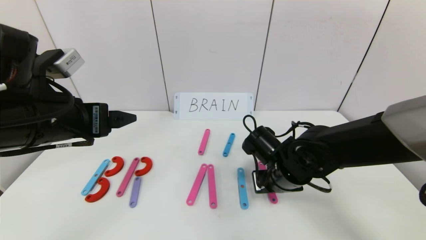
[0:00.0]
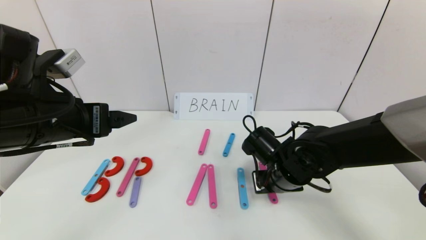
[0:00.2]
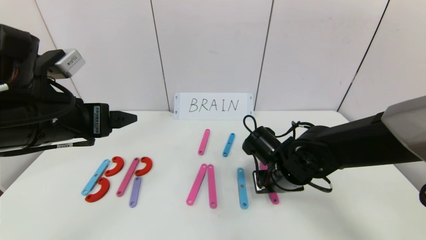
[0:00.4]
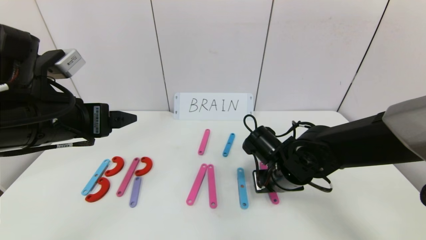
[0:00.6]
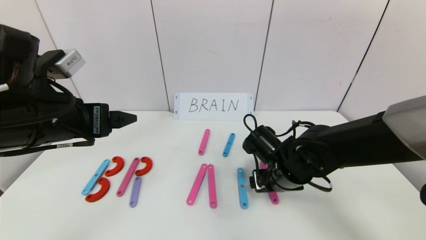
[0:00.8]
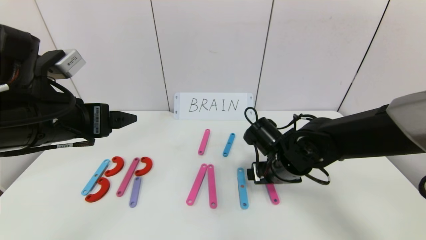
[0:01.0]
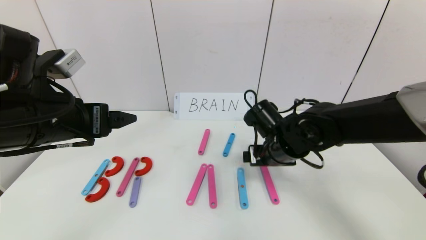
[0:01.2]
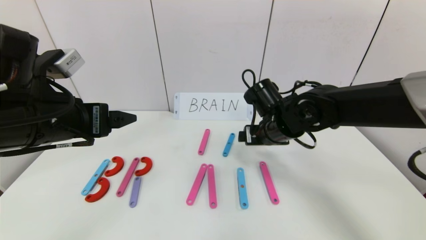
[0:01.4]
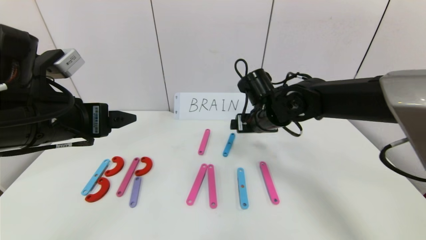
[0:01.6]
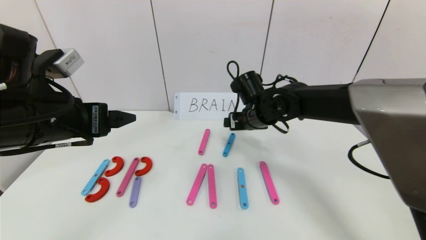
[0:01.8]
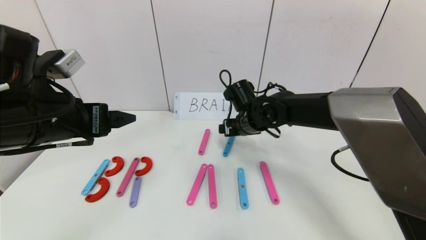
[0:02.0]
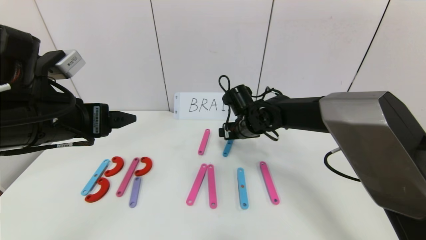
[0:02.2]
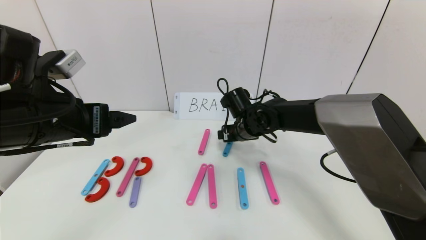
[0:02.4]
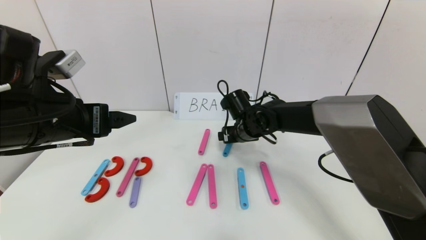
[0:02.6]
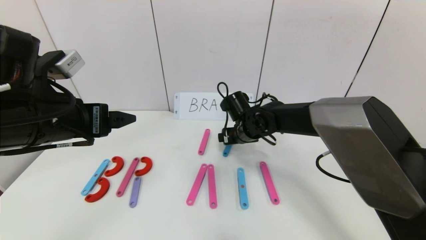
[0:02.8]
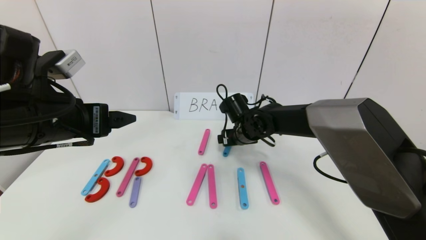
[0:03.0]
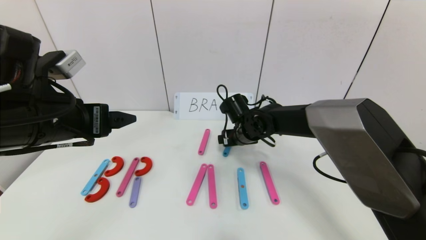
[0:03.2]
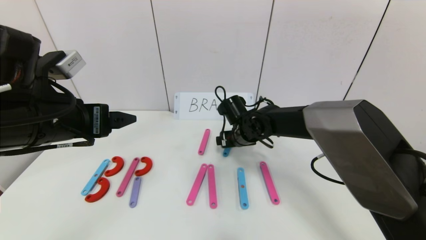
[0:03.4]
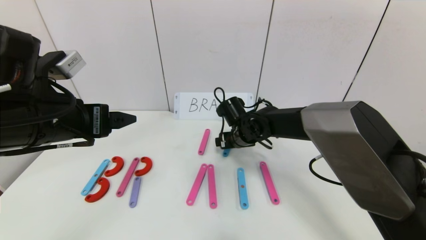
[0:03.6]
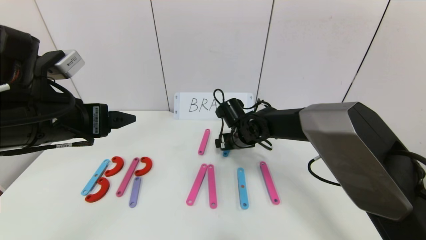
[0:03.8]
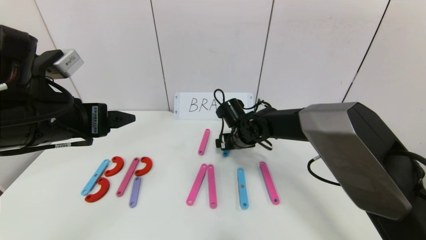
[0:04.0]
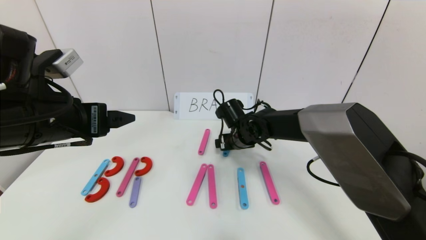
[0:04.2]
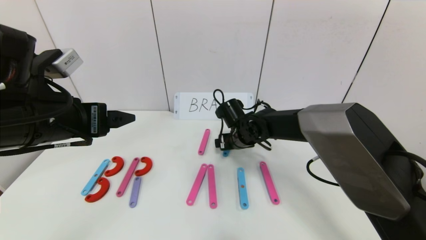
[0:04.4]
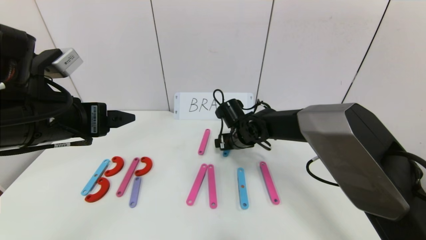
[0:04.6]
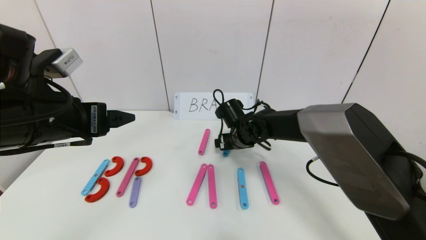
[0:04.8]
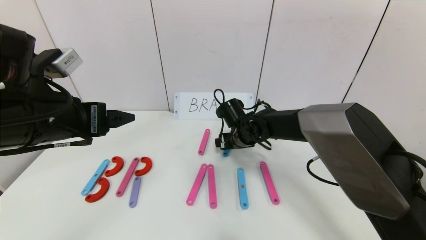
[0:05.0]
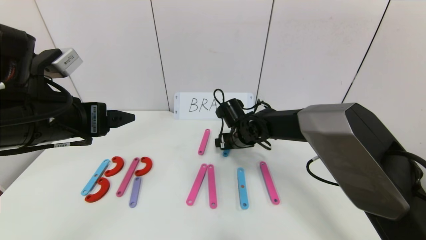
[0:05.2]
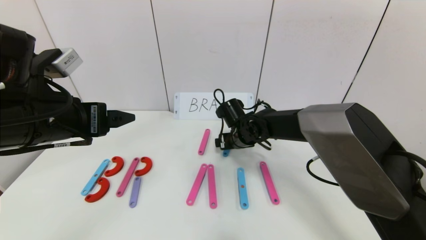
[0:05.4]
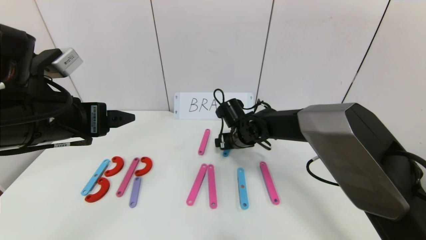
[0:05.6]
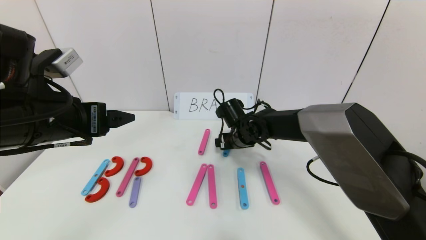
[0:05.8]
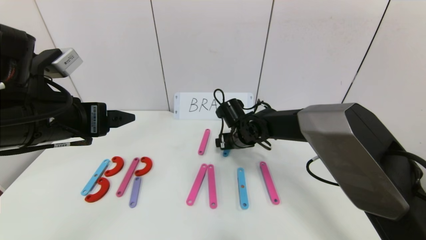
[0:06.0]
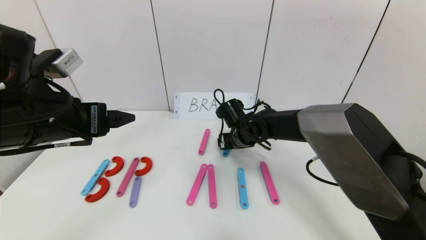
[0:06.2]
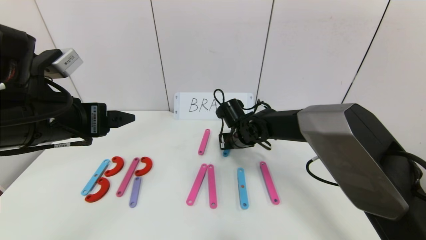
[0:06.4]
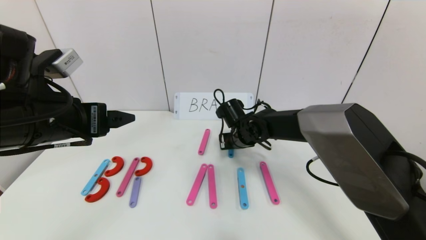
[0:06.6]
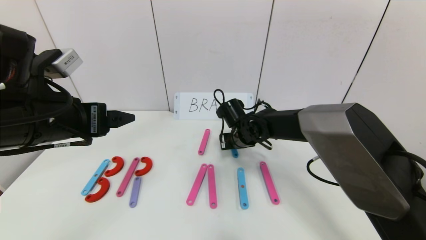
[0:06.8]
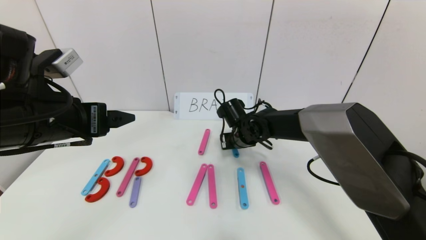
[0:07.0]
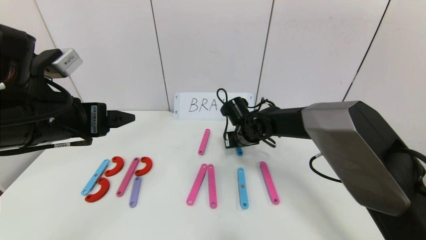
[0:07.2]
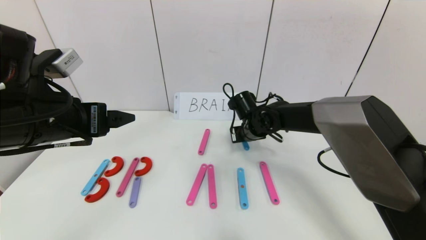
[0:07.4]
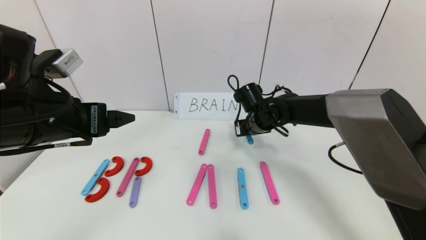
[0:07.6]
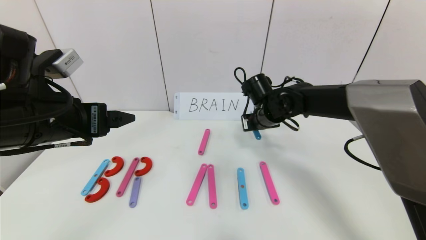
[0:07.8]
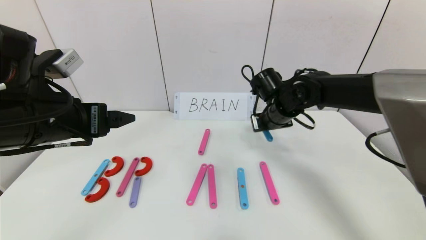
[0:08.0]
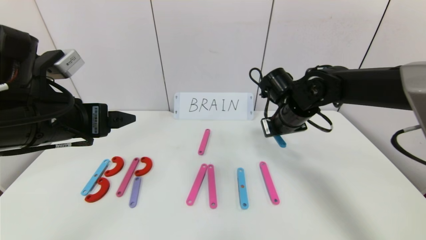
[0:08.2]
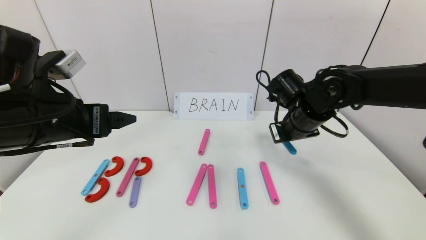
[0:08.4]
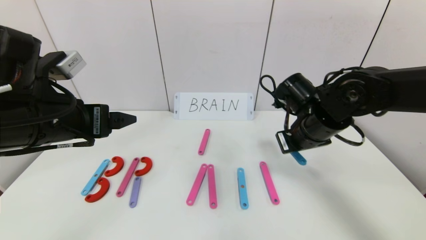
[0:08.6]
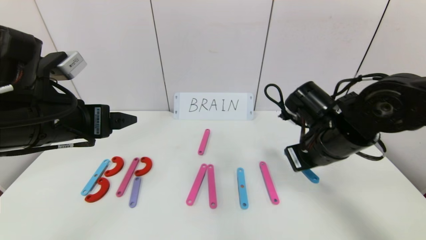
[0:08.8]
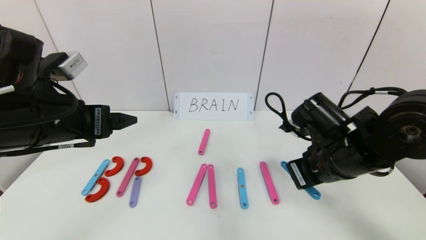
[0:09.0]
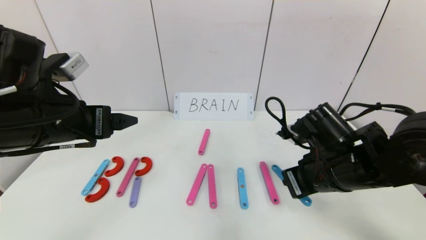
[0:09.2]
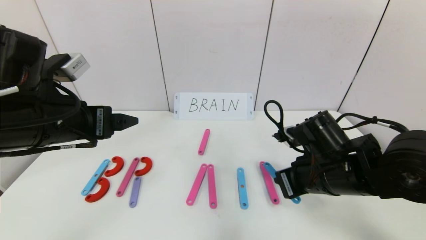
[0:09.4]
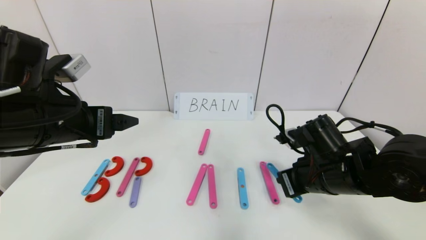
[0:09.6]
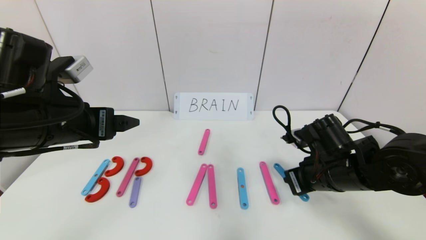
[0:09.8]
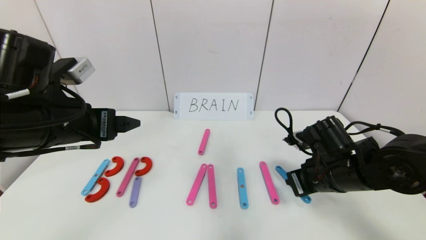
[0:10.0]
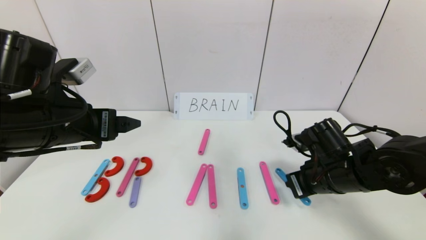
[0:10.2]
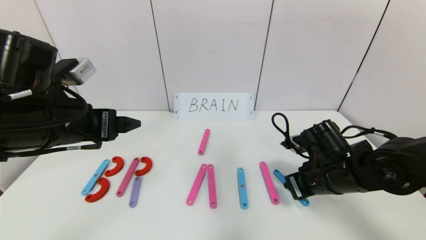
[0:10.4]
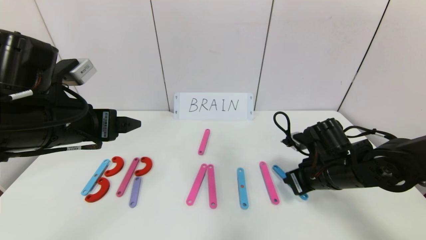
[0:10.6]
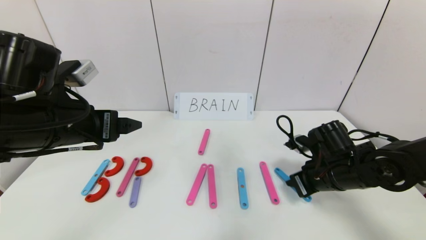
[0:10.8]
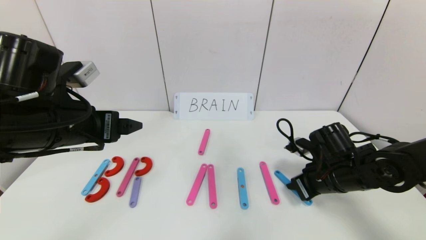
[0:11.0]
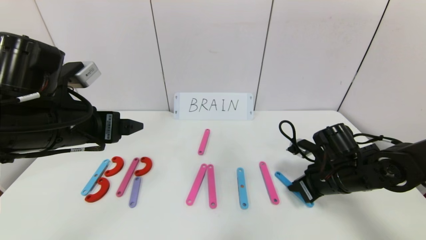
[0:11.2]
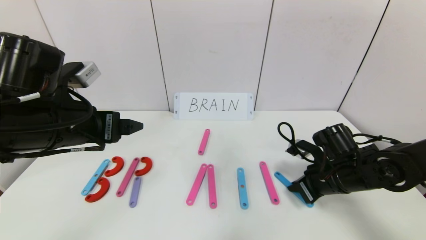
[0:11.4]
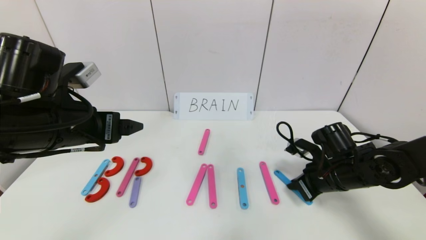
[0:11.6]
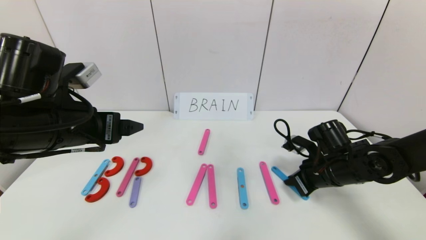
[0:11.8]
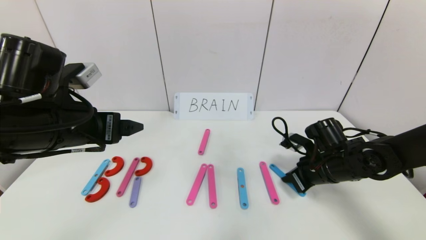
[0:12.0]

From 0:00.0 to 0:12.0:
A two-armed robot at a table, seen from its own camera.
Task of the whole recording: rearrange the word baai as brain.
From 0:00.0 to 0:01.6: The right gripper is displaced forward and upward by some 15 cm, and opens up.
From 0:01.6 to 0:03.0: The right gripper heads downward, covering approximately 5 cm.
From 0:03.0 to 0:04.4: There are only small adjustments of the grippers.
From 0:04.4 to 0:06.0: Neither gripper changes place.
From 0:06.0 to 0:07.6: The right gripper changes place by about 5 cm, and closes up.
From 0:07.6 to 0:09.0: The right gripper moves backward and to the right, some 20 cm.
From 0:09.0 to 0:10.4: The right gripper moves downward, about 5 cm.
From 0:10.4 to 0:12.0: The right gripper shifts by some 5 cm.

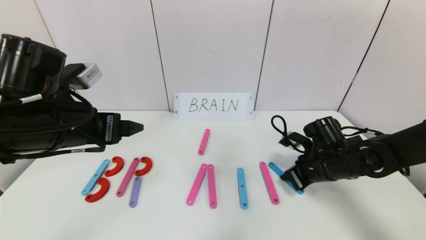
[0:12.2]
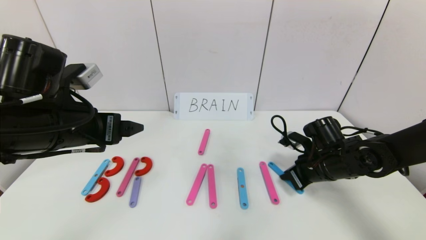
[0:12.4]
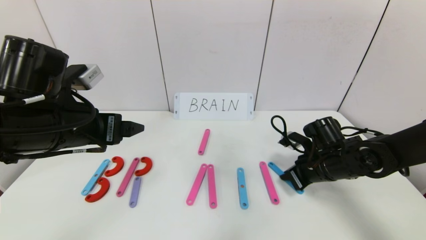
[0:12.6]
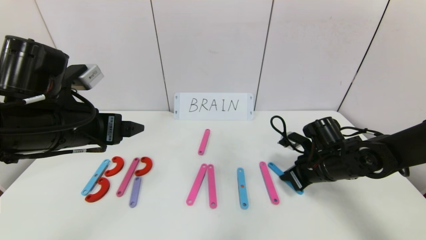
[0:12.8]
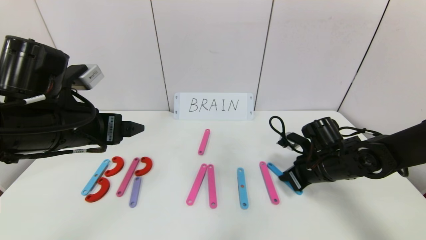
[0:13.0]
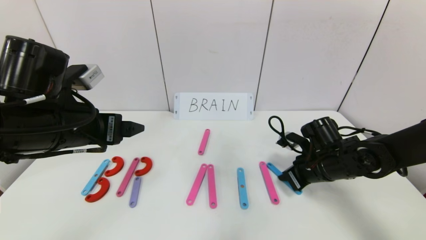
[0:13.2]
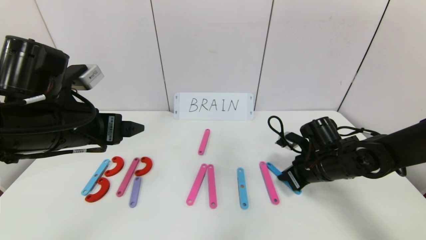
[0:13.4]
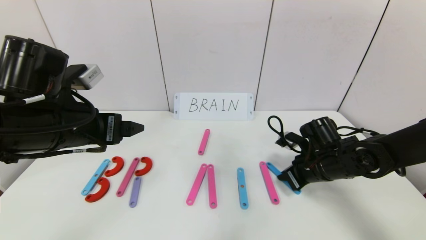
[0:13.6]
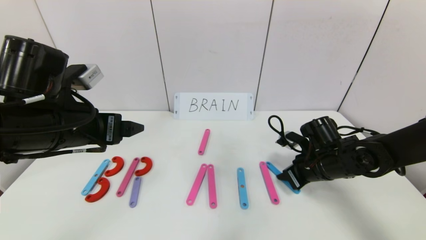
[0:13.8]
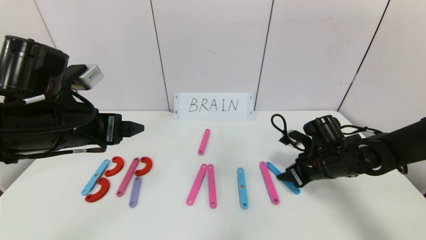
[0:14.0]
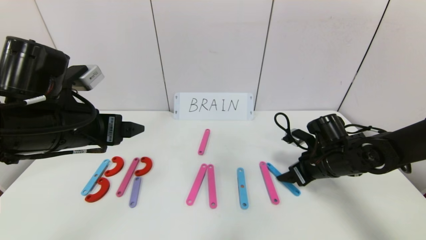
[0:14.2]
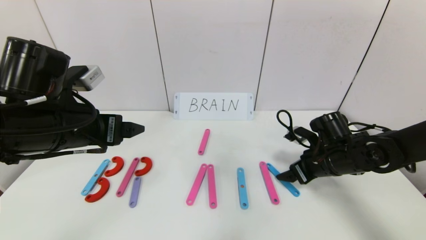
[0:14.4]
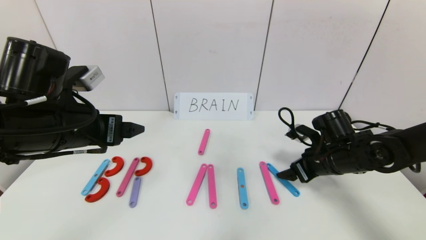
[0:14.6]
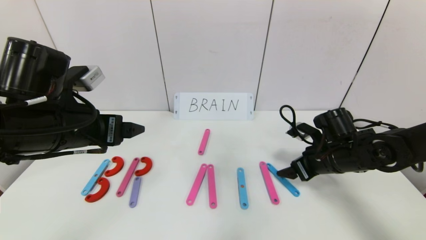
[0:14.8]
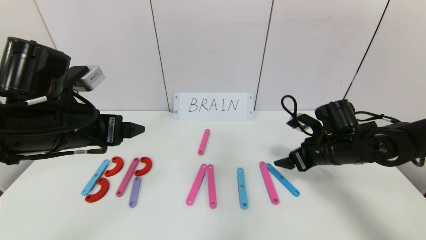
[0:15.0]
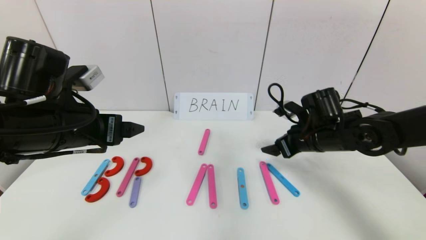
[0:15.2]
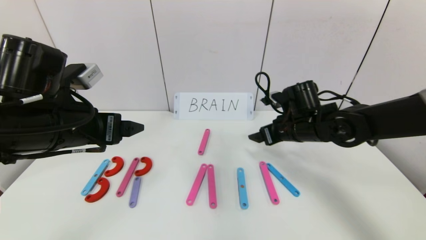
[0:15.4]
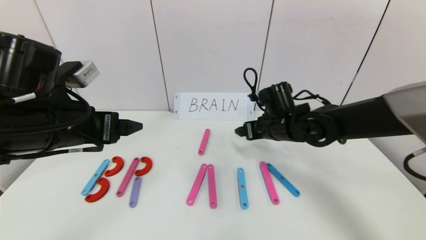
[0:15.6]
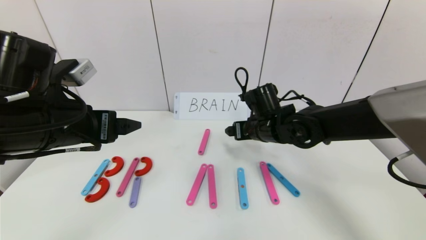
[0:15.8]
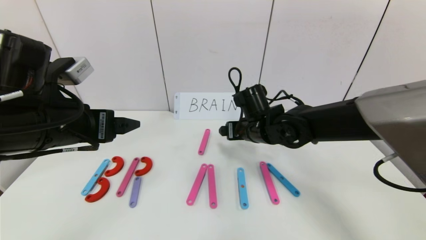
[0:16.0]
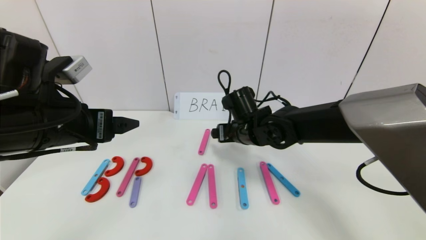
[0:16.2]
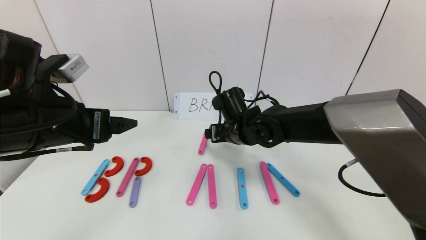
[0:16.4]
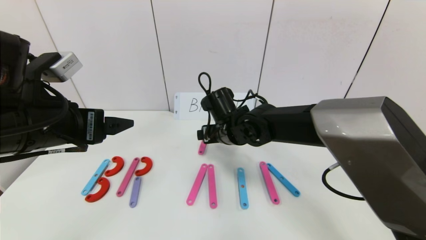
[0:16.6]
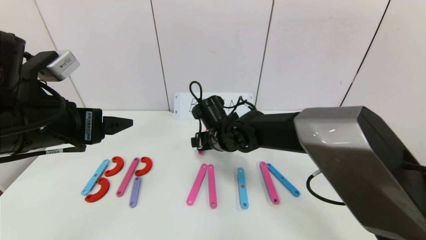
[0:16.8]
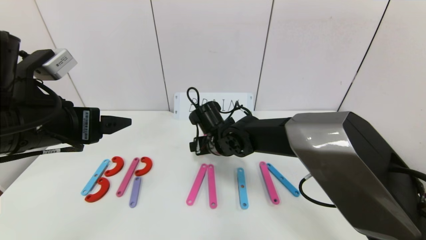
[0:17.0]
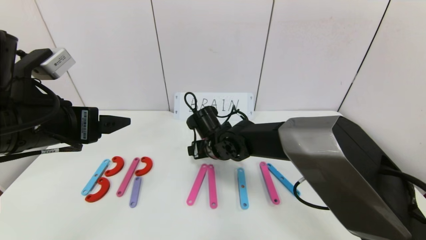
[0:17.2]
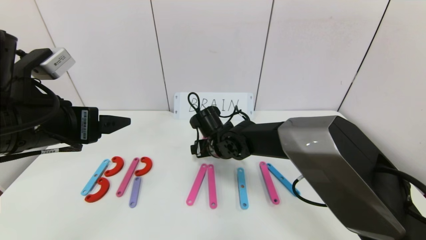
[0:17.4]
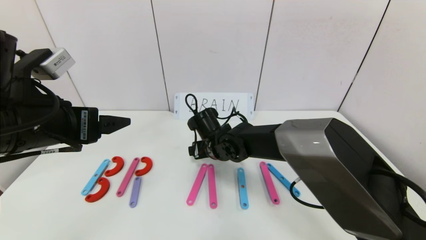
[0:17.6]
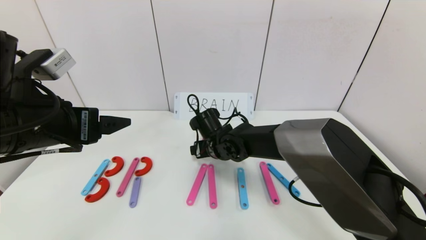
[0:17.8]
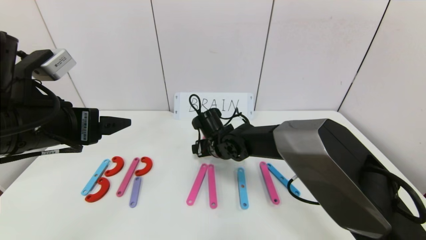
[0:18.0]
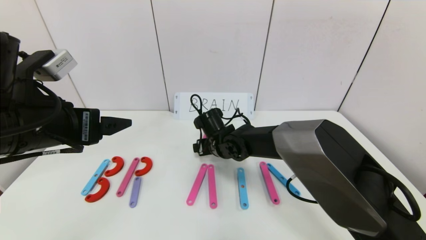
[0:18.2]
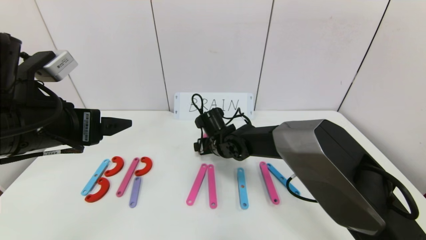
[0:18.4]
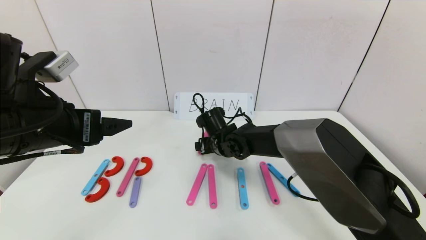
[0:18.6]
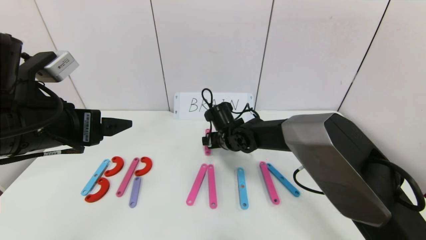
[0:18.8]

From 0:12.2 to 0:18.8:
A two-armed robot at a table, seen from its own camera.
Task of the whole recording: rearrange the word baai as brain.
From 0:12.2 to 0:13.8: Neither gripper changes place.
From 0:13.8 to 0:15.4: The right gripper moves upward and to the left, some 10 cm, and opens up.
From 0:15.4 to 0:17.2: The right gripper goes approximately 20 cm to the left.
From 0:17.2 to 0:18.8: The right gripper changes place by roughly 5 cm.
